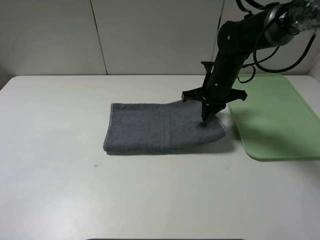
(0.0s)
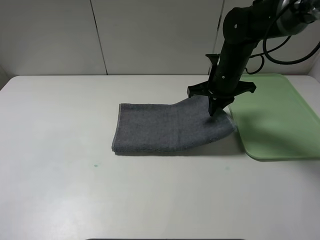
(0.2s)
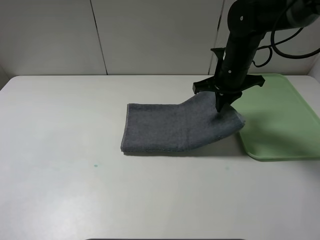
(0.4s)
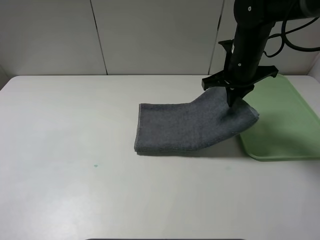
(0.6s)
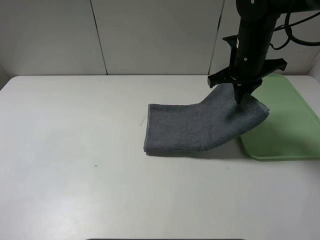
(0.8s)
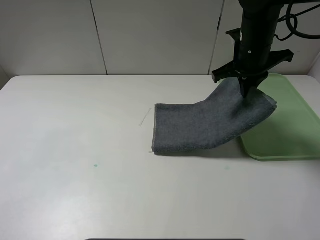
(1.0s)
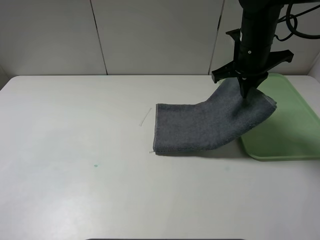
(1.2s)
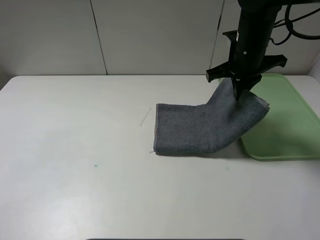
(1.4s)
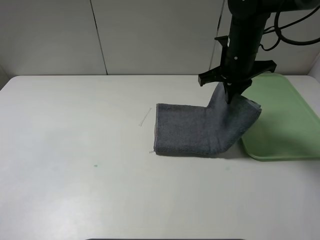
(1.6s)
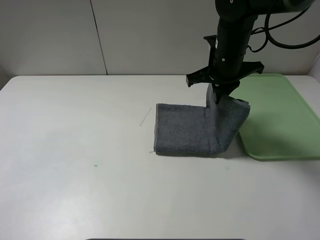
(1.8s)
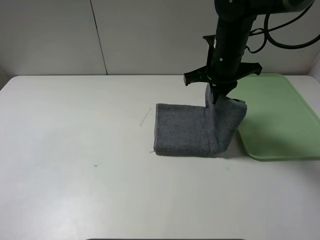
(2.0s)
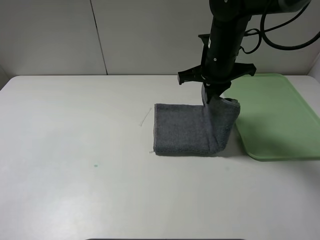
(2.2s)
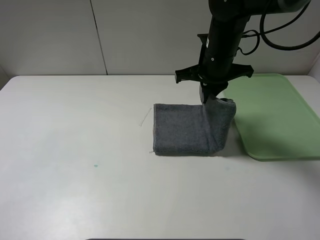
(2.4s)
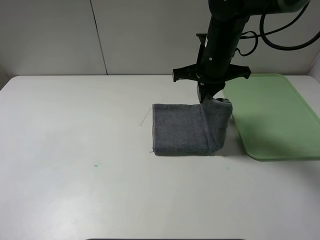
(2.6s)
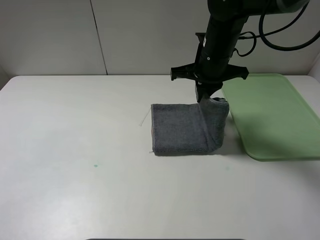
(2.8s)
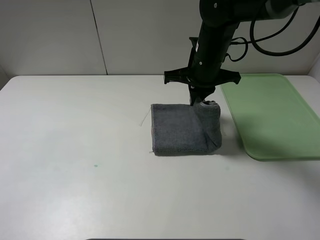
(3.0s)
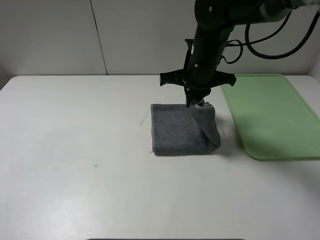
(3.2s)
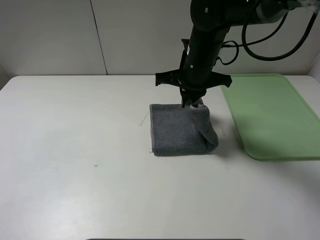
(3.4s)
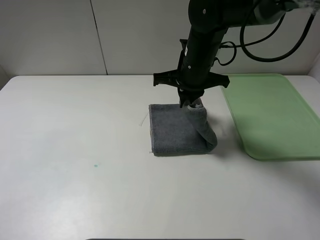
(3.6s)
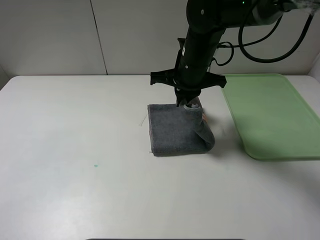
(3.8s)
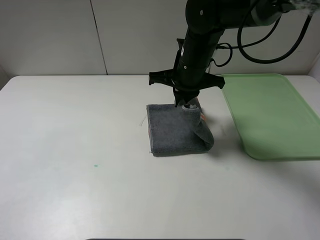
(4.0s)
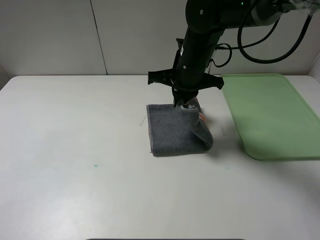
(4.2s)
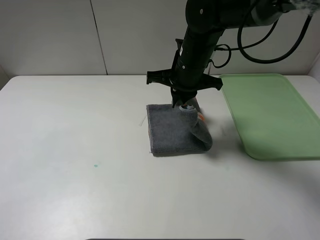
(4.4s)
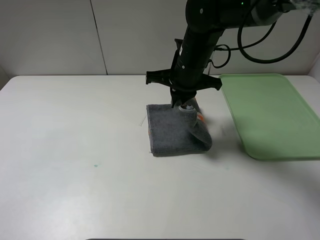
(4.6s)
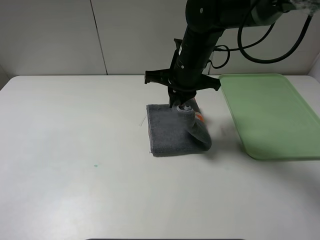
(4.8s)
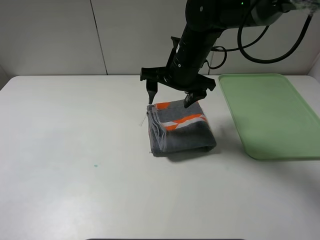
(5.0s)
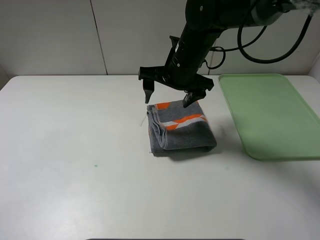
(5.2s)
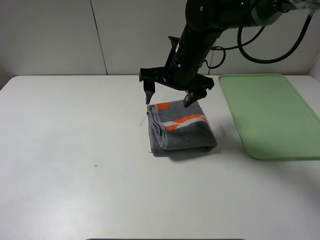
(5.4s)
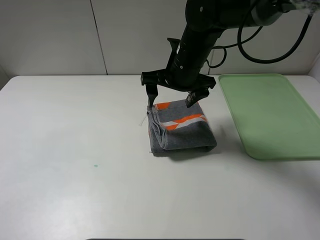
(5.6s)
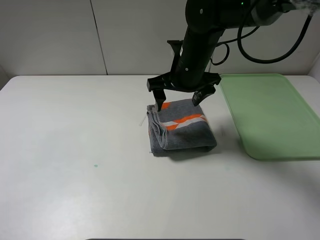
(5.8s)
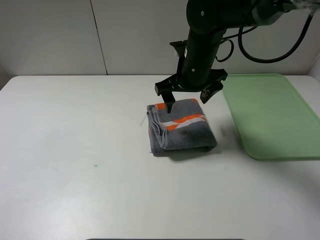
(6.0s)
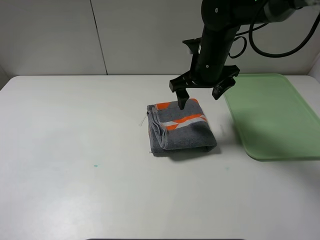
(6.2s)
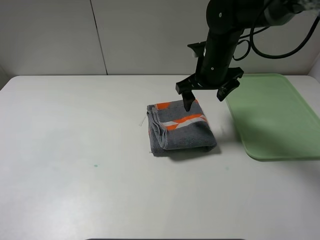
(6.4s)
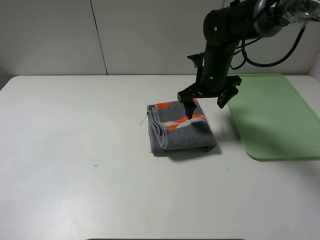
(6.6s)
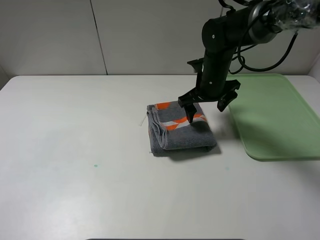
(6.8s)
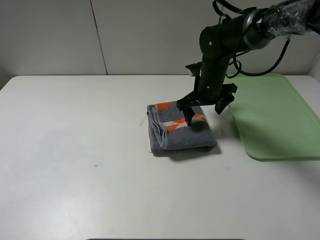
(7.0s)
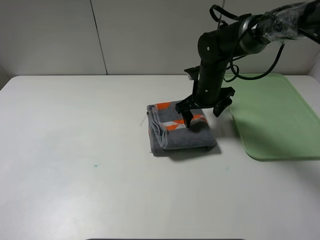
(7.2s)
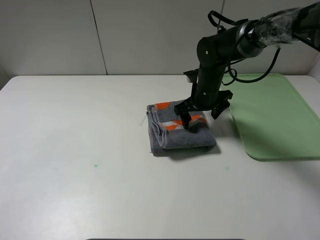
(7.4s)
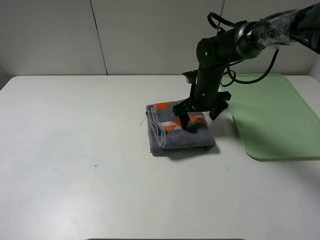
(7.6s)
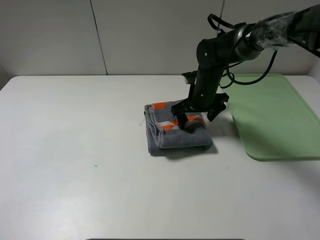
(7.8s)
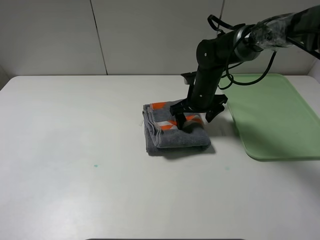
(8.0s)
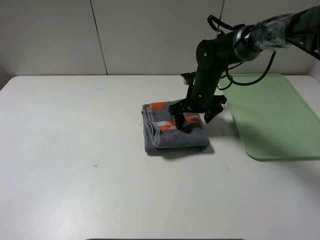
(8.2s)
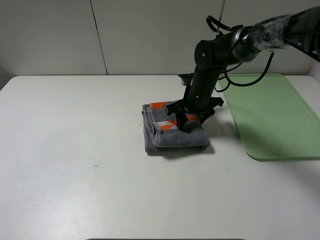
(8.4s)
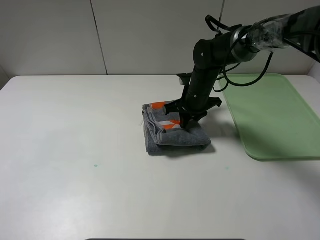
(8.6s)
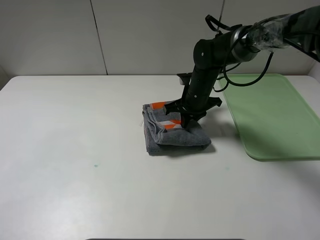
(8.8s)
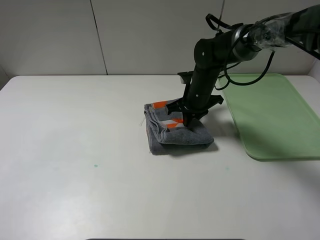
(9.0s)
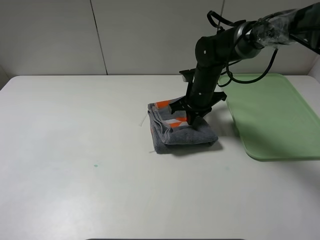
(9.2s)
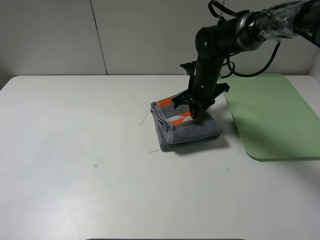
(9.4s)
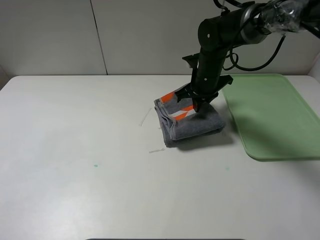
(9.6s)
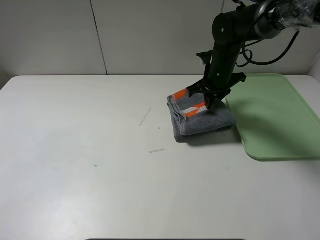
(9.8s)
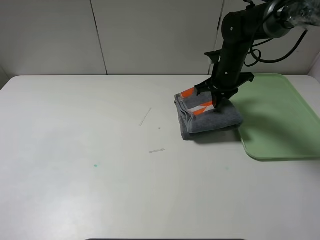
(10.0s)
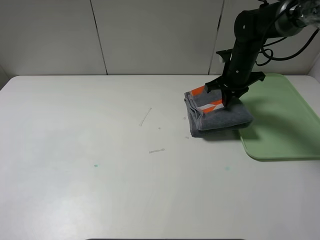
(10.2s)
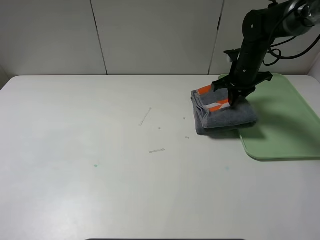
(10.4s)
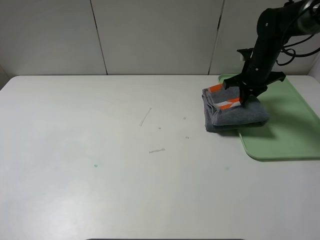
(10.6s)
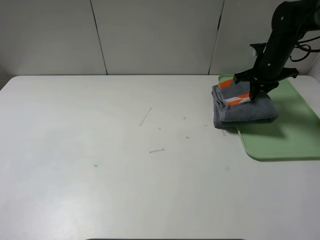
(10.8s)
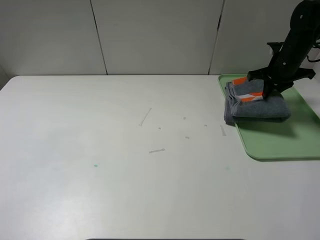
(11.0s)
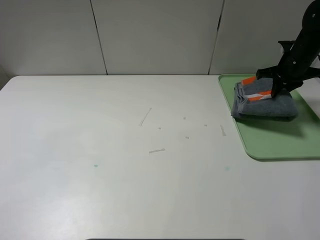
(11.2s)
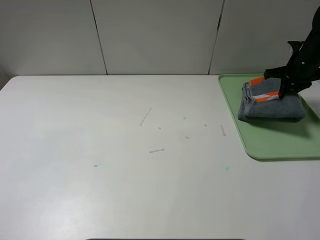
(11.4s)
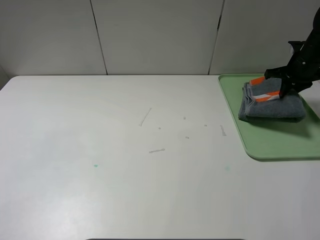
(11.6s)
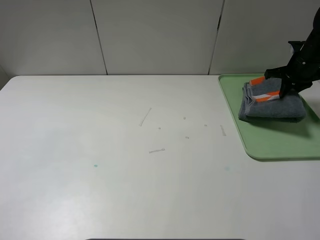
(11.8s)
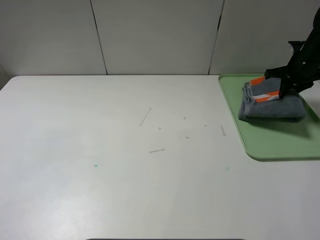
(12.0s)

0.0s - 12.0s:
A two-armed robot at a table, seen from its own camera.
Step, 0.0s - 5.0s: Fold the grey towel from right to left with right gripper.
0.0s - 1.6s: The right gripper goes approximately 5 cm upward.
1.6s - 3.0s: The right gripper shifts some 5 cm to the left.
3.0s - 4.4s: There are only small adjustments of the grippers.
4.4s - 6.0s: The right gripper opens up.
6.0s - 7.6s: The right gripper goes approximately 10 cm downward.
7.6s - 9.0s: The right gripper closes up.
9.0s - 10.4s: The right gripper heads to the right, covering approximately 10 cm.
10.4s - 12.0s: The right gripper heads to the right, covering some 15 cm.

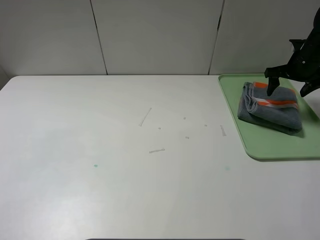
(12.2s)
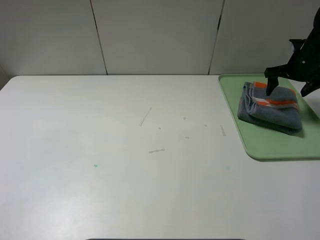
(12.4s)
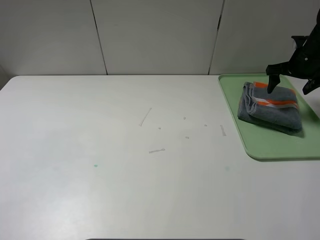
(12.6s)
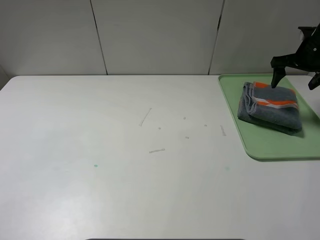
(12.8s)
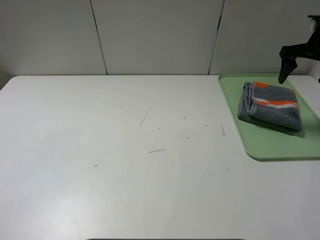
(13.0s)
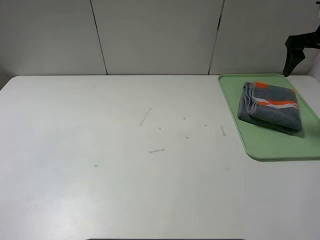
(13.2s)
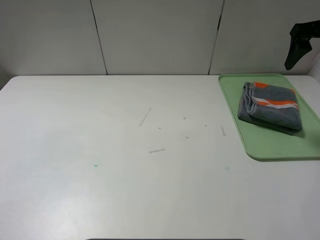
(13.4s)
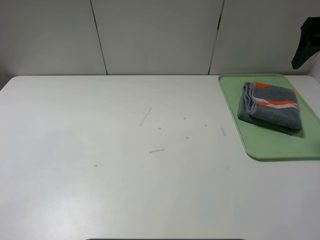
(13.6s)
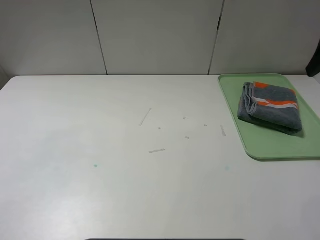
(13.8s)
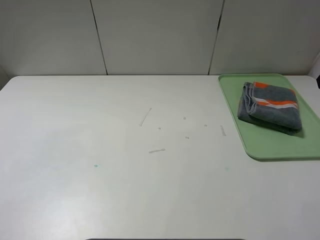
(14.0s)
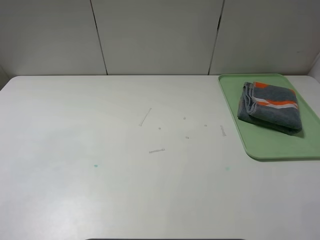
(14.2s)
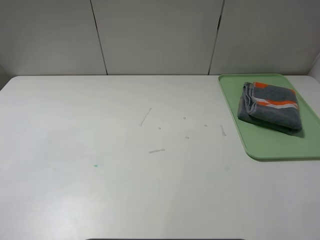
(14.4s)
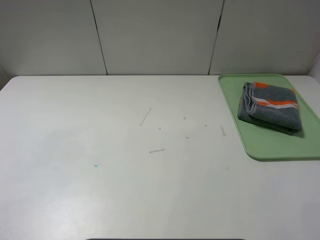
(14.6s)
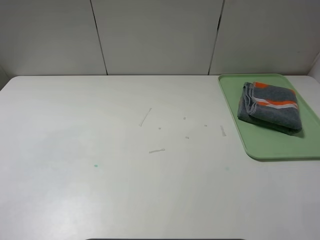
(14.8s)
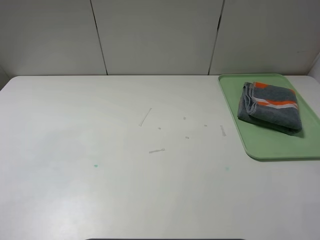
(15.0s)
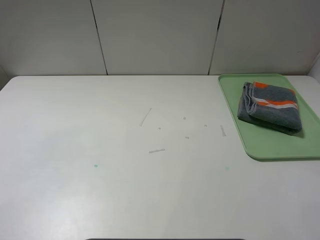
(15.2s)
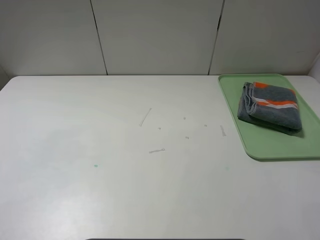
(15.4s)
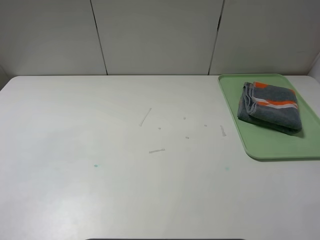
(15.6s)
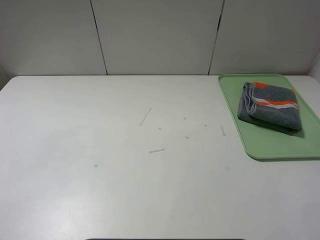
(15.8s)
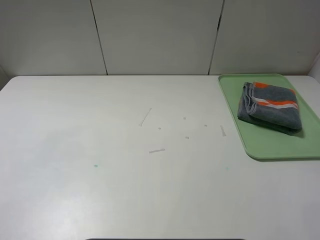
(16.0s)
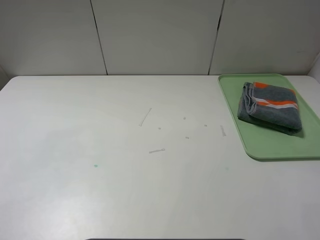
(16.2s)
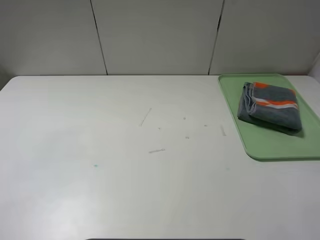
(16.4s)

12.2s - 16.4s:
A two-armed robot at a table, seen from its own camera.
12.2s - 13.6s: The right gripper shifts some 20 cm upward and backward.
13.6s - 15.0s: The right gripper goes about 30 cm backward.
15.0s - 16.4s: Neither gripper changes place.
